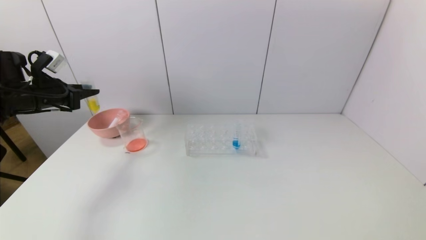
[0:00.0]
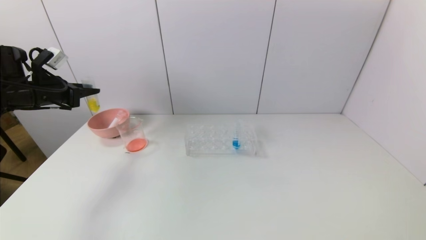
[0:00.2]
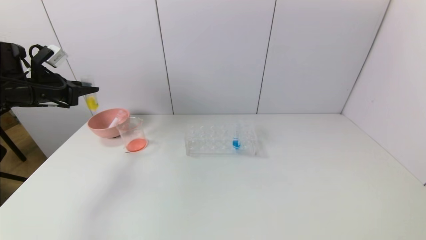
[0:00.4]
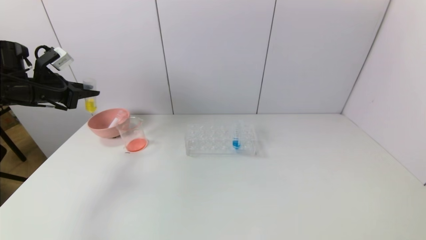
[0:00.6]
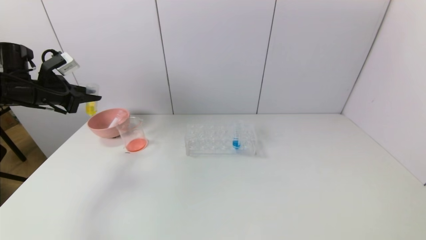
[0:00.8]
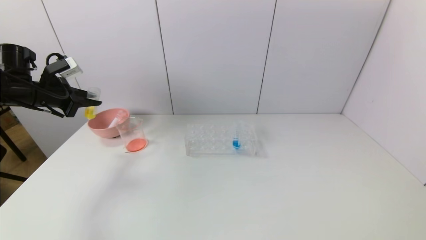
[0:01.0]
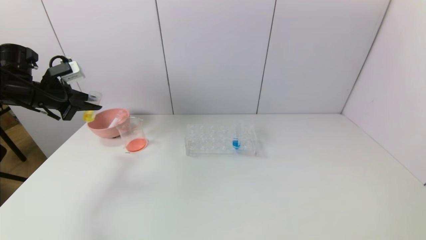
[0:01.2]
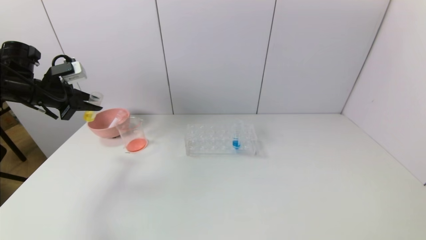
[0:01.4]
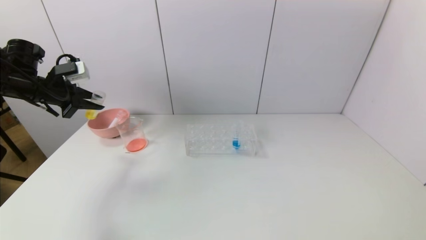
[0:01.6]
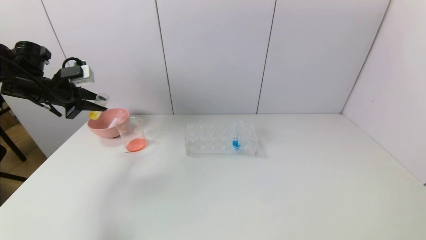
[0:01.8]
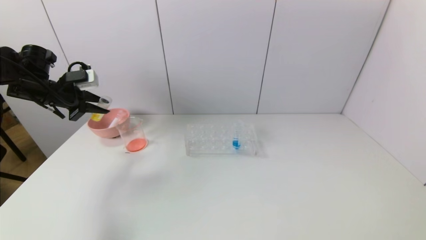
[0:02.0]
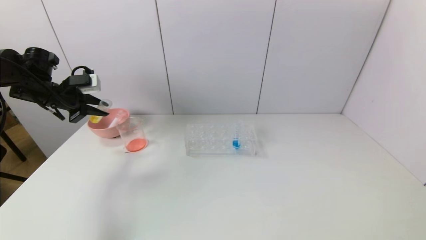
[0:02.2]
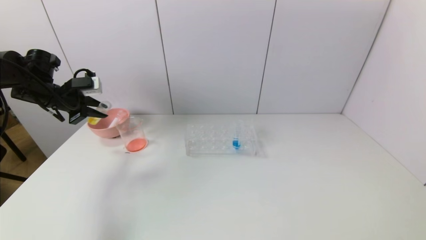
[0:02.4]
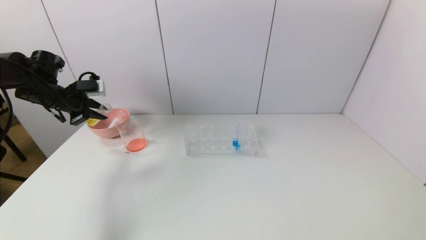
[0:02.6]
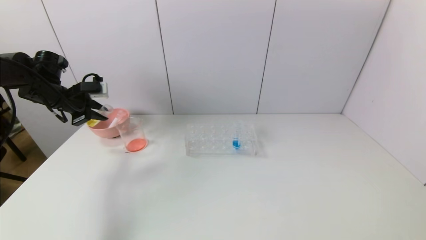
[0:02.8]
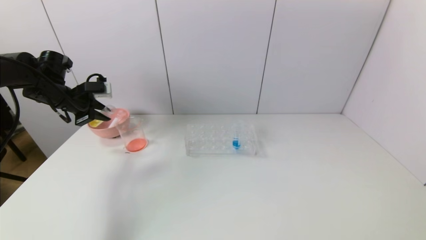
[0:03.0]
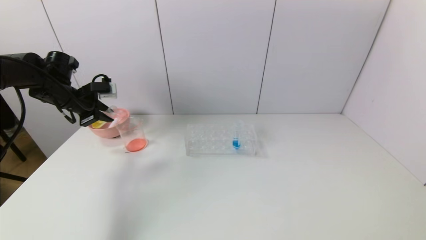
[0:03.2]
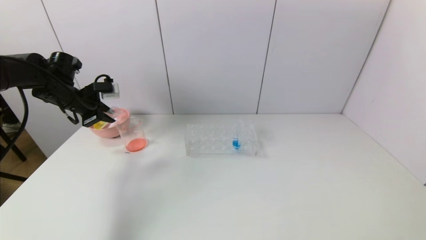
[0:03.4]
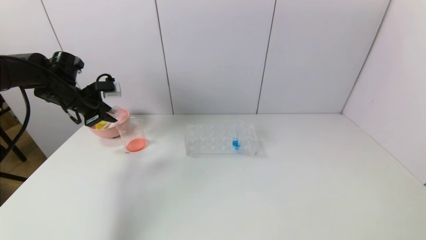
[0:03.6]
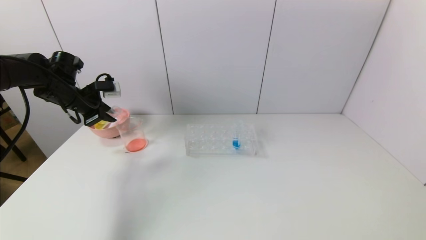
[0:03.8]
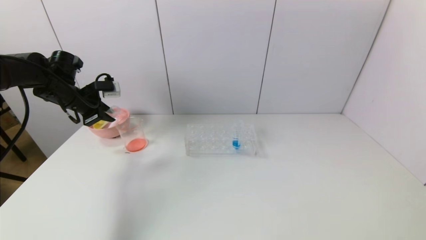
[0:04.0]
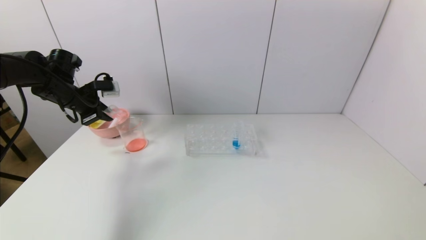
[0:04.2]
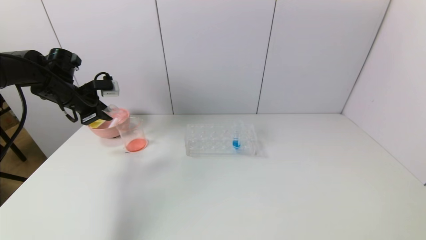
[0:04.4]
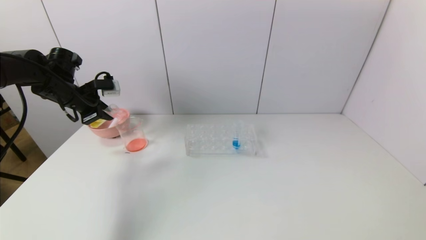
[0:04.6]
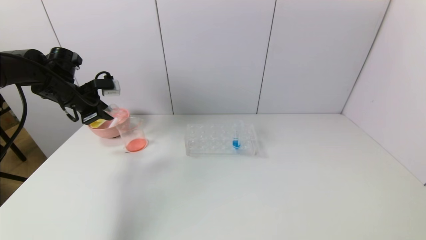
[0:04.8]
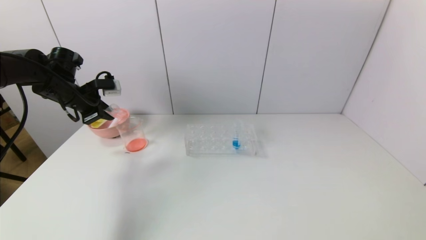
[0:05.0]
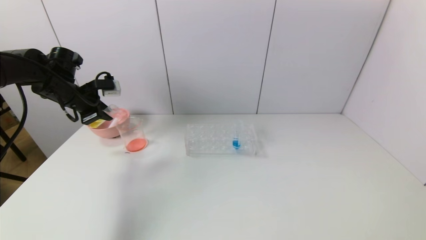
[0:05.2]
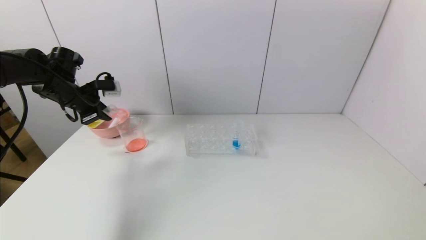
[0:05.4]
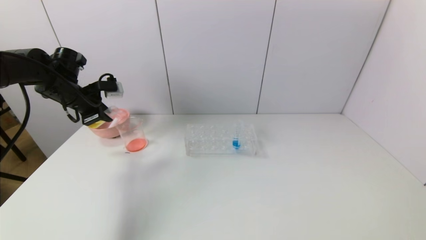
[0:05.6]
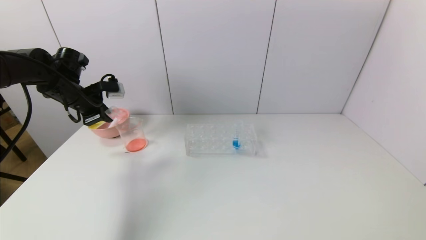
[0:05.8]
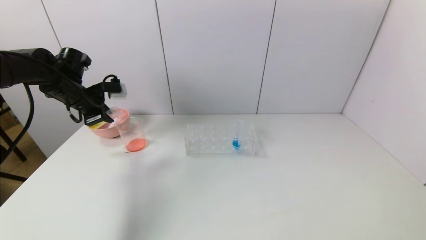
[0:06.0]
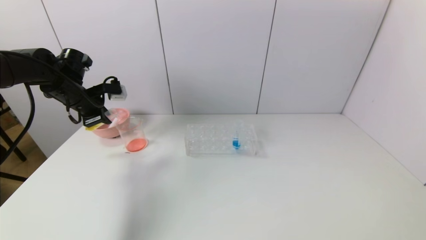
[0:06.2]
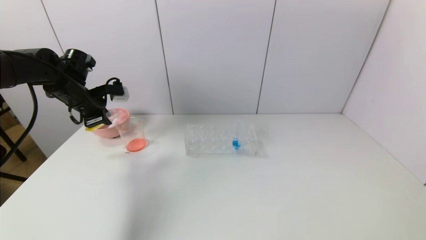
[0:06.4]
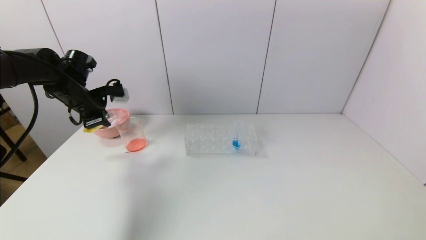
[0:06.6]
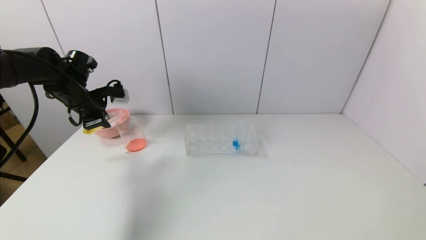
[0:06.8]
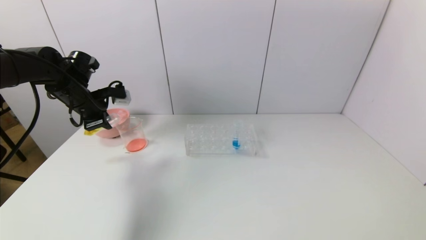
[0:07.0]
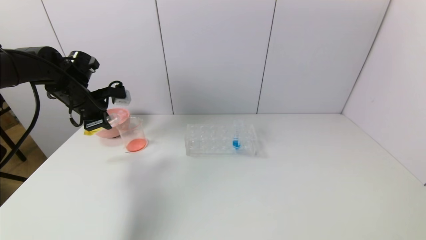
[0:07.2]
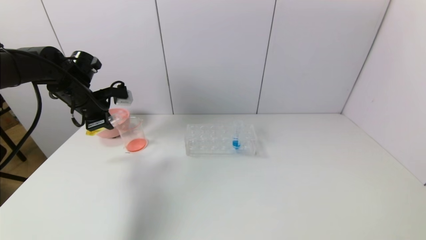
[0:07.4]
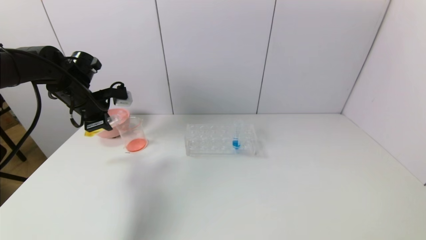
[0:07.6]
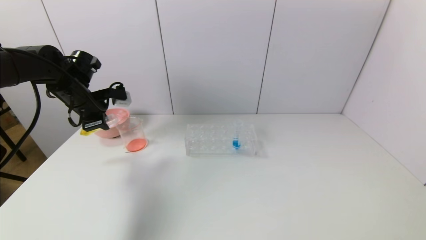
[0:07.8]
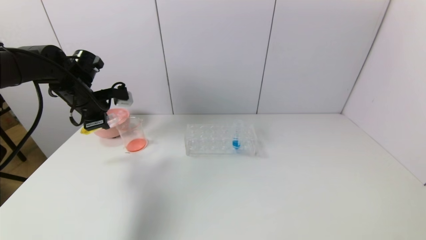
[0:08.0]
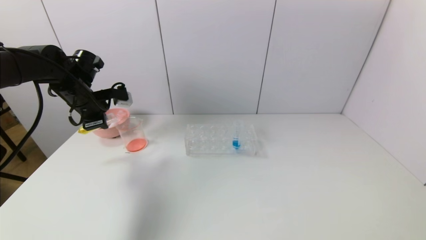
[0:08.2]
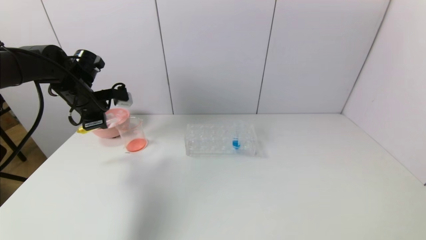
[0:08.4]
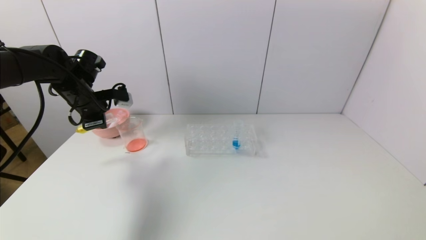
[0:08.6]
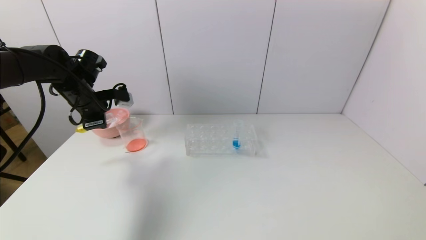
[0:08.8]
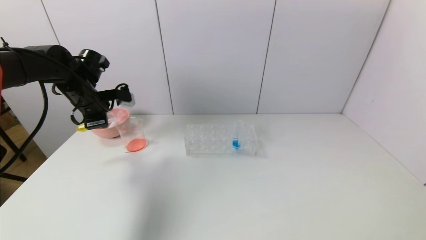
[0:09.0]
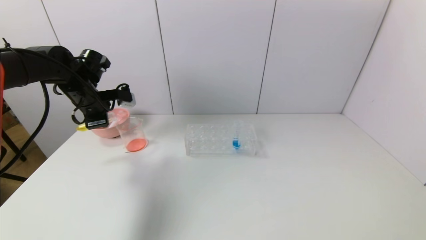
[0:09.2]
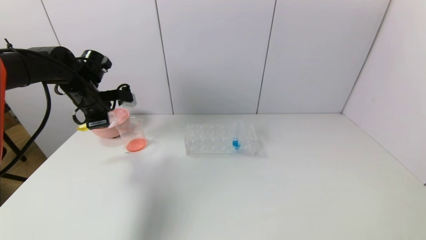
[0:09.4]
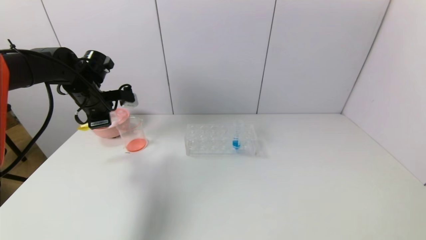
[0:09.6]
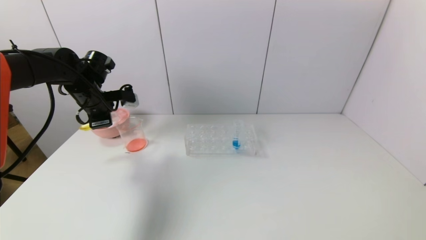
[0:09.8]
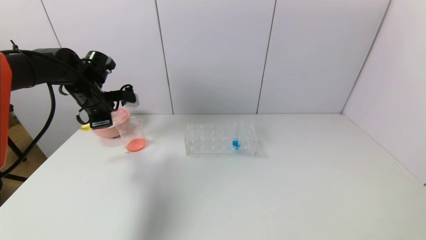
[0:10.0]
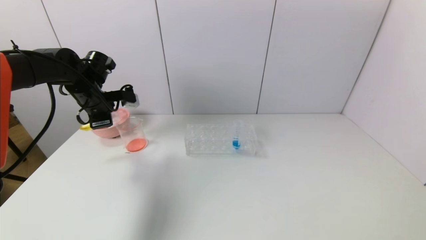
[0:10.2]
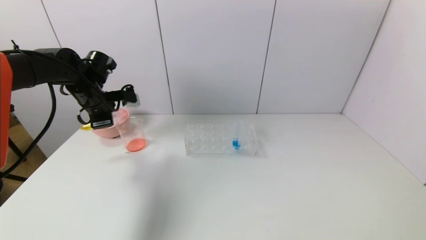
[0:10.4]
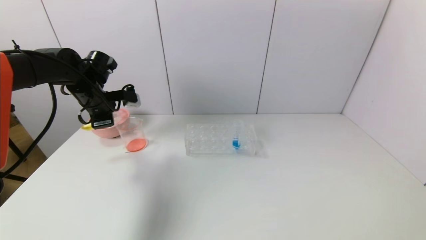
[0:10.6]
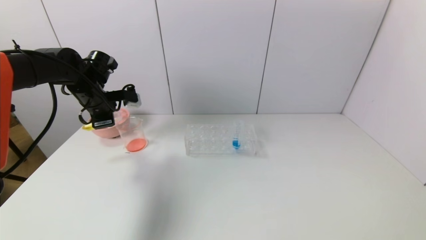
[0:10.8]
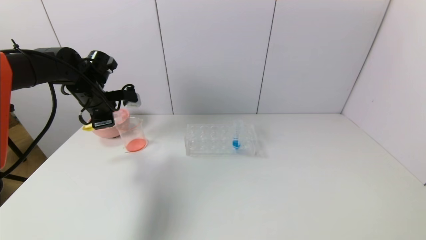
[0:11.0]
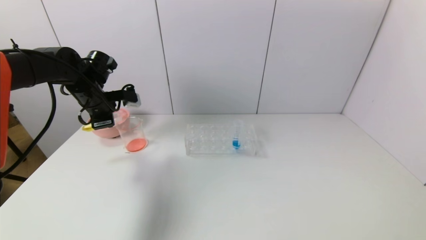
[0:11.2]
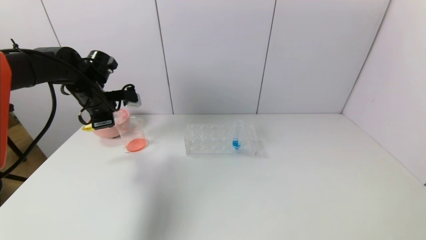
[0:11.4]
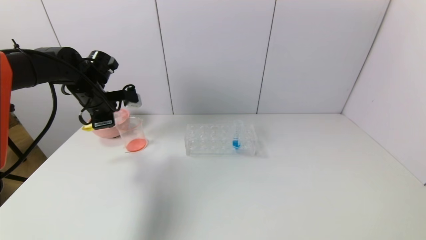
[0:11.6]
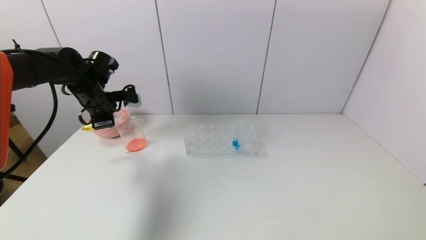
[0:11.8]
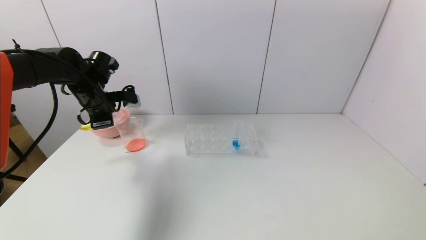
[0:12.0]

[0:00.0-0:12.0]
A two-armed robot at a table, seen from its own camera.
Task of the whole recording: pick up the test tube with yellow pigment and the test tube with red pigment by grippers and pour them into the beaker.
0:01.6 to 0:03.0: The grippers make only small movements.
0:03.0 to 0:06.0: There are only small adjustments of the grippers.
0:06.0 to 0:09.0: There are only small adjustments of the grippers.
0:09.0 to 0:10.4: Both grippers stay about where they are.
0:10.4 to 0:12.0: The two grippers keep their place.

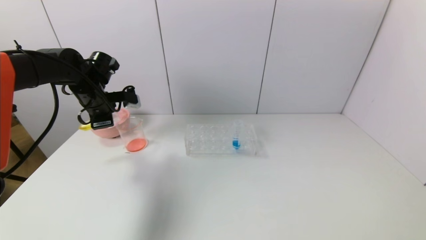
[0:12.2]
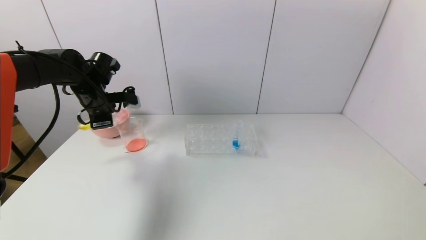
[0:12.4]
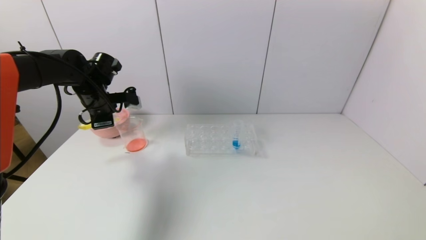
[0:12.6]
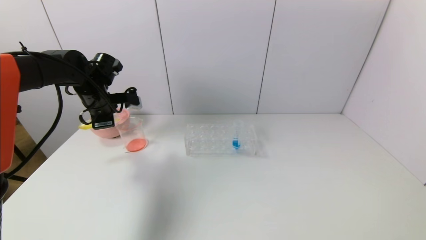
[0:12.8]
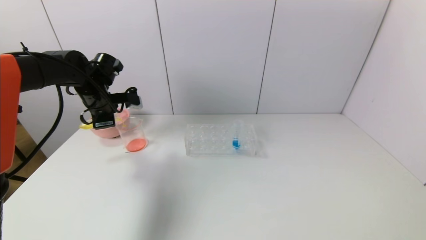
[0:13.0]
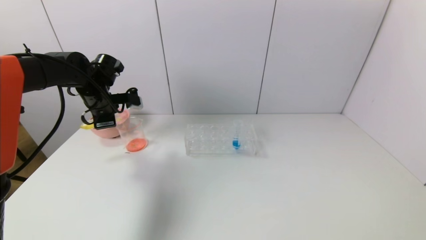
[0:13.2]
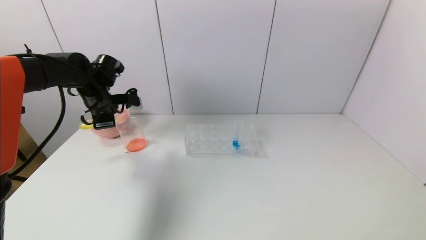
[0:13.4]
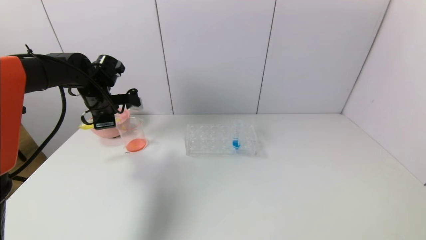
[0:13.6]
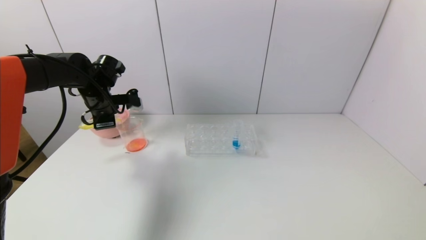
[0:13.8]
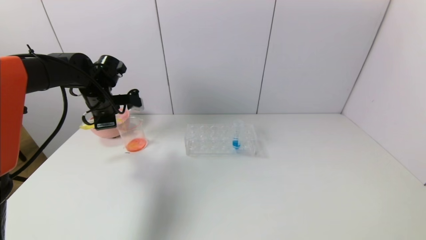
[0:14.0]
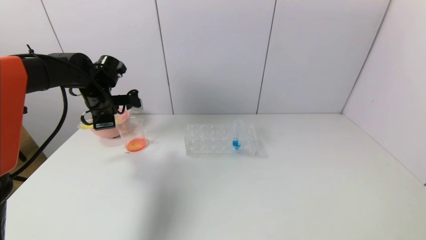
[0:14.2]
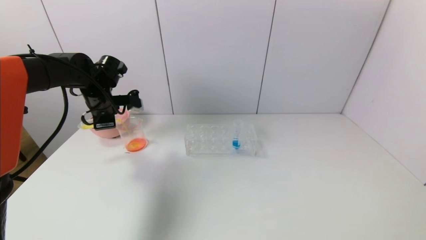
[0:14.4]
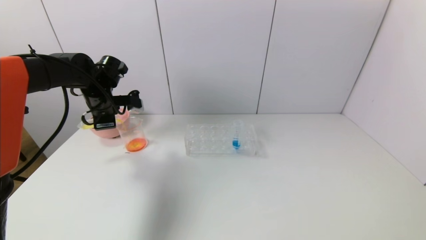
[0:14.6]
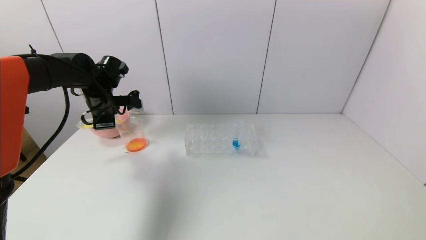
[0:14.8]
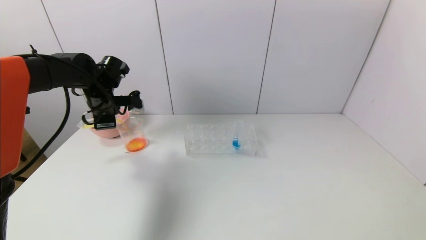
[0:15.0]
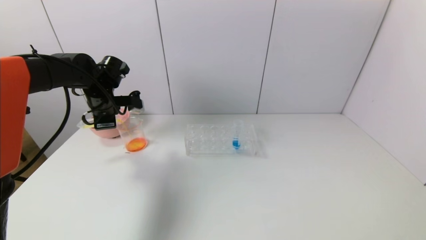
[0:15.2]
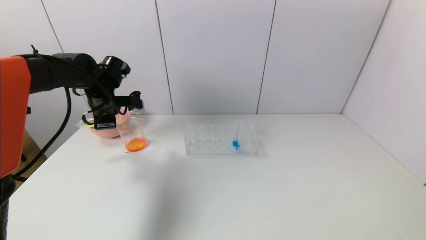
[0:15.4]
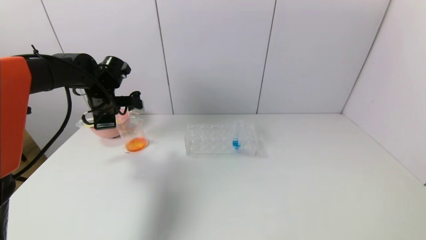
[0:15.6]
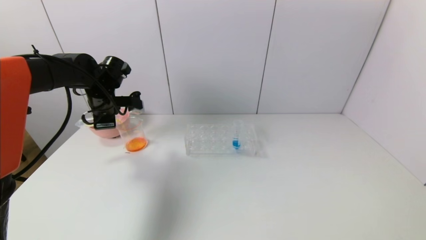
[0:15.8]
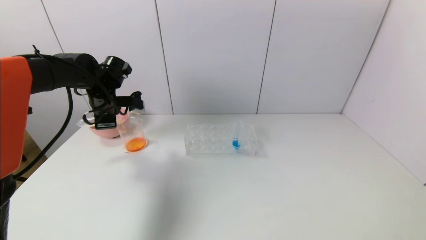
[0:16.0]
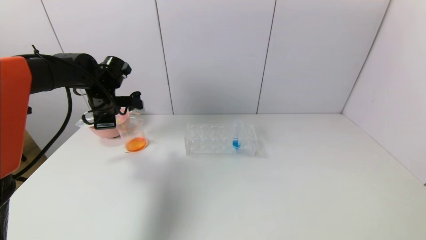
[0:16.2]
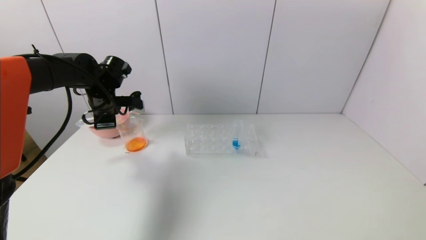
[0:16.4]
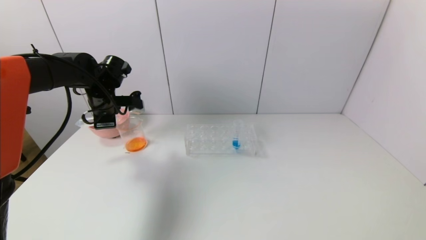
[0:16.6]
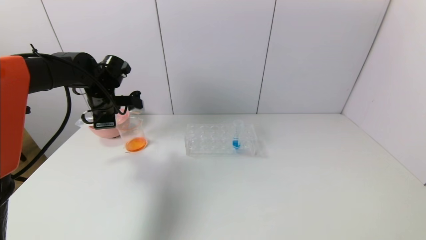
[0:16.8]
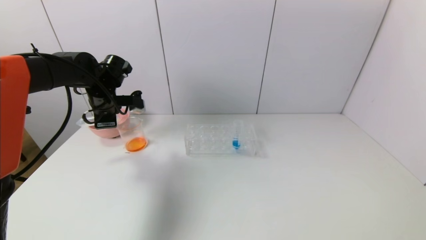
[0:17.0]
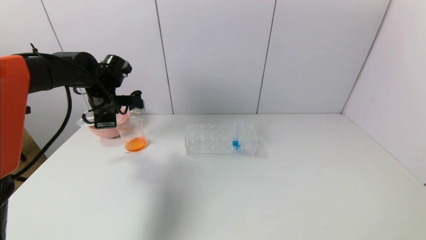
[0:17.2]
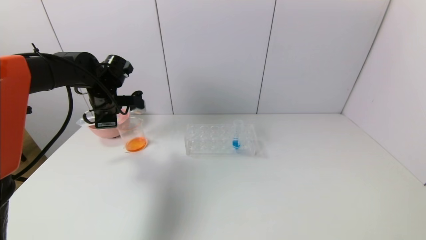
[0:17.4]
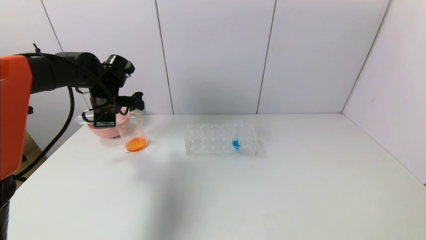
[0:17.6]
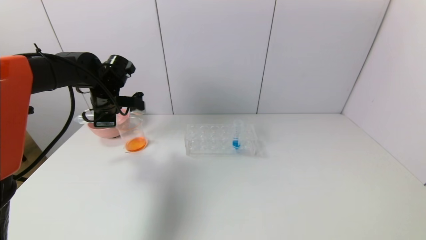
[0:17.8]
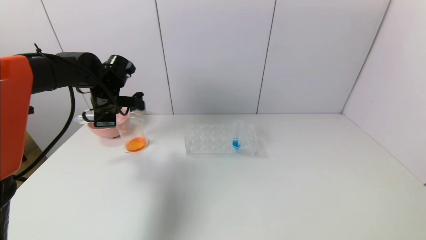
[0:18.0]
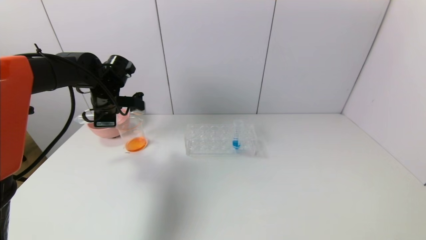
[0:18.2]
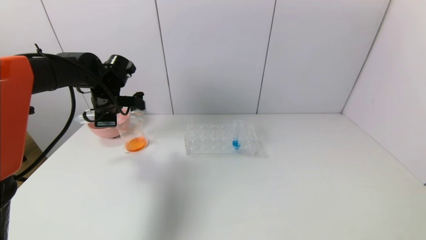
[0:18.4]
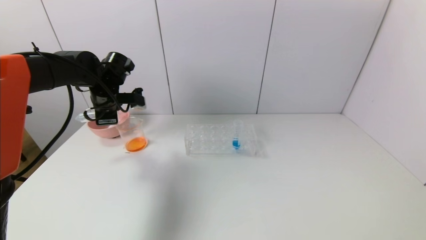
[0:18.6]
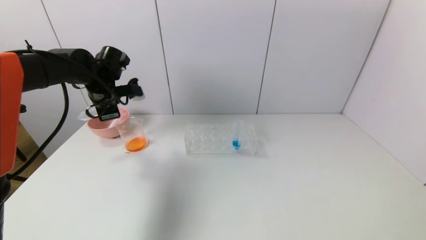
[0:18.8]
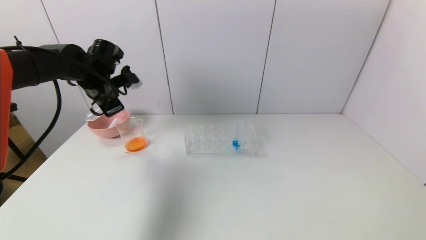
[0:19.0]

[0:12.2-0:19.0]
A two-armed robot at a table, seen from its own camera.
Task of the whole recording: pick up the test tube with yellow pigment and the test tube with red pigment by grippers and pour them into the beaker.
Step, 0:12.2 to 0:18.2: Pour the yellow reagent into the graduated cylinder with the left gripper.
0:12.2 to 0:13.6: Neither gripper changes place.
0:13.6 to 0:15.0: Neither gripper changes place.
0:15.0 to 0:16.2: Neither gripper changes place.
0:16.2 to 0:17.6: Both grippers stay about where they are.
